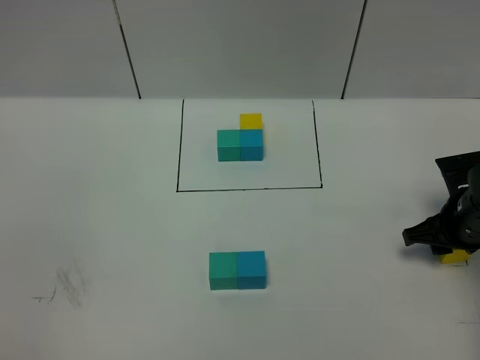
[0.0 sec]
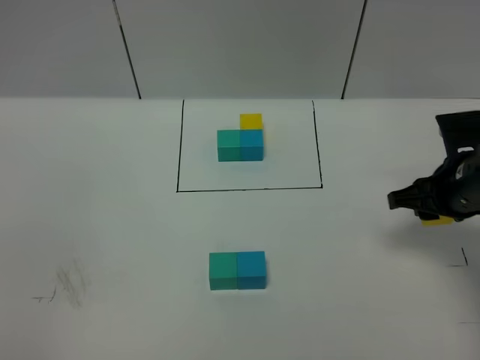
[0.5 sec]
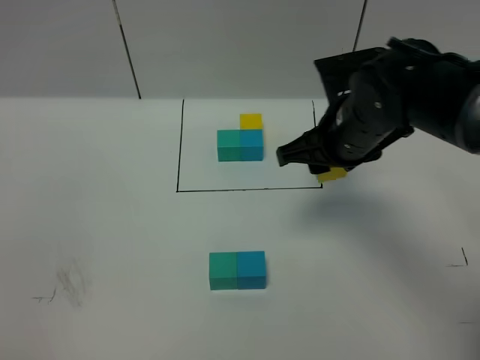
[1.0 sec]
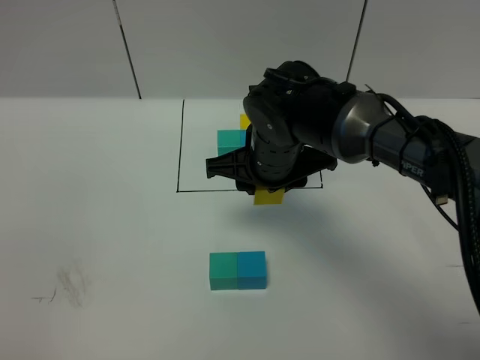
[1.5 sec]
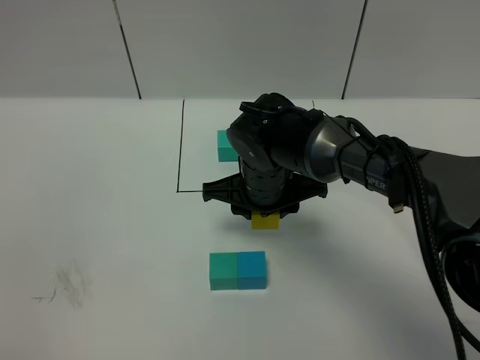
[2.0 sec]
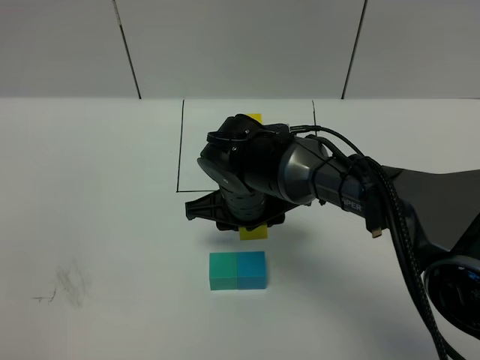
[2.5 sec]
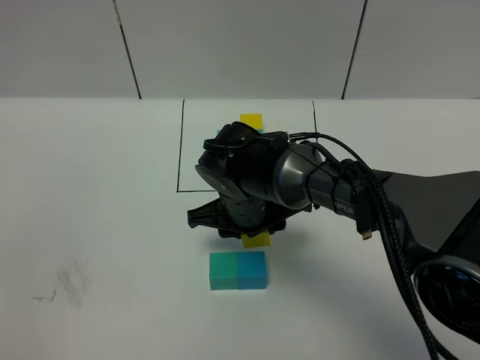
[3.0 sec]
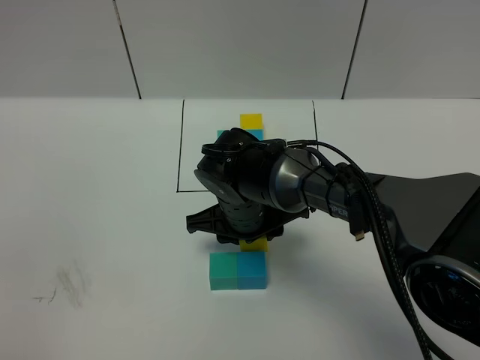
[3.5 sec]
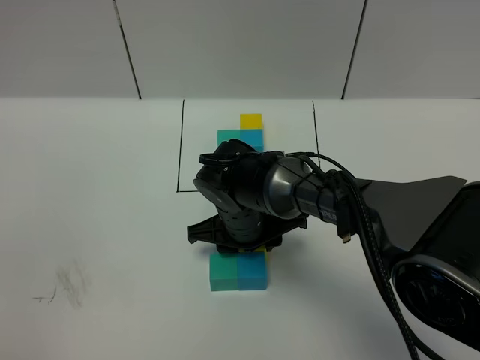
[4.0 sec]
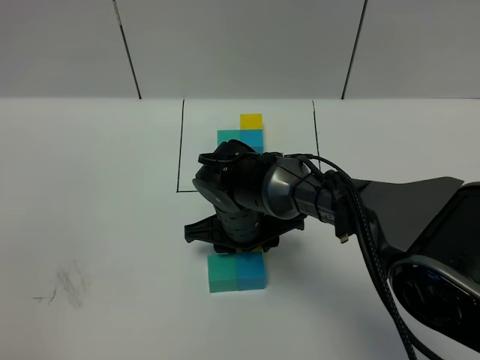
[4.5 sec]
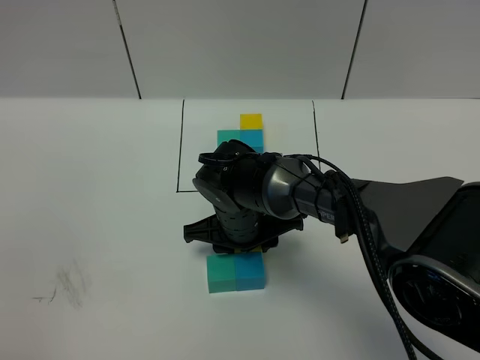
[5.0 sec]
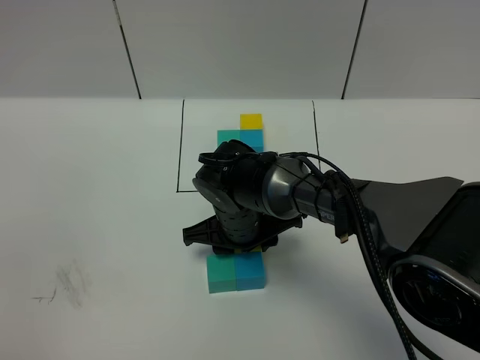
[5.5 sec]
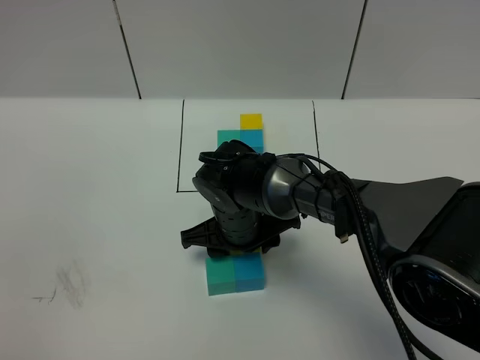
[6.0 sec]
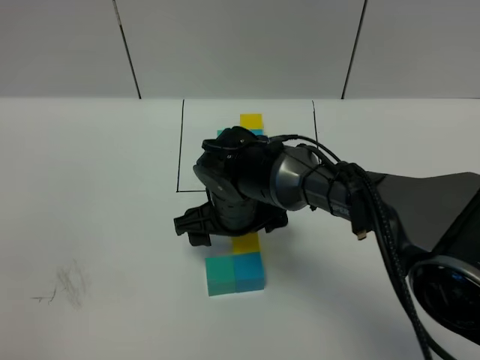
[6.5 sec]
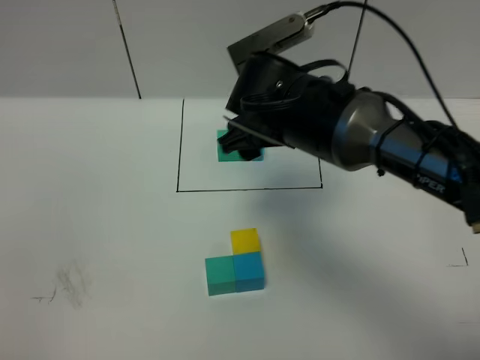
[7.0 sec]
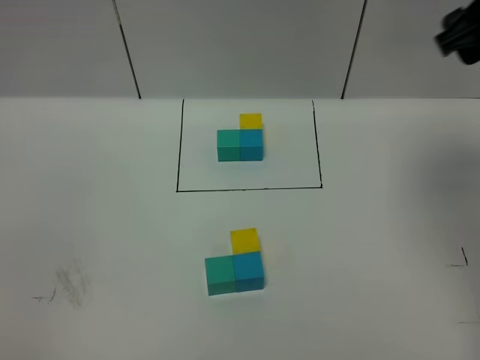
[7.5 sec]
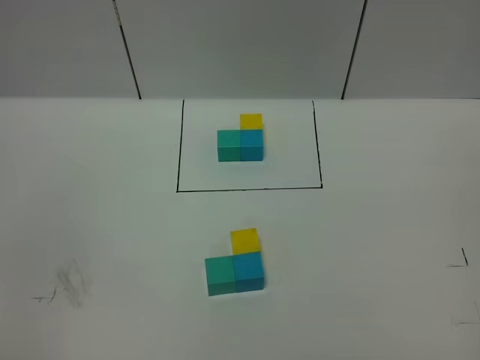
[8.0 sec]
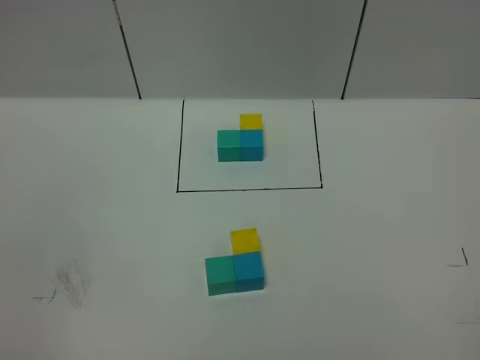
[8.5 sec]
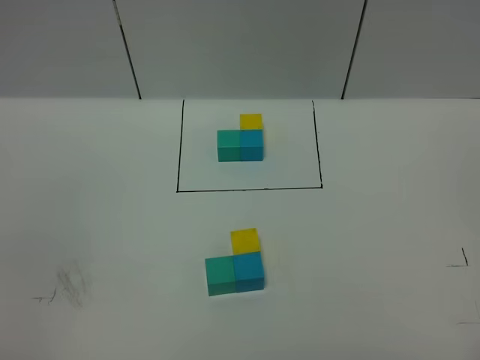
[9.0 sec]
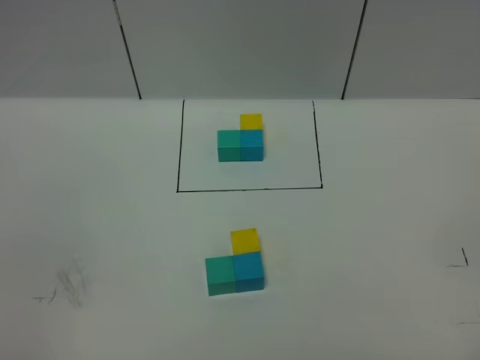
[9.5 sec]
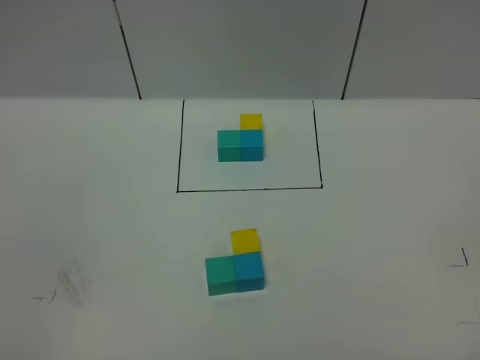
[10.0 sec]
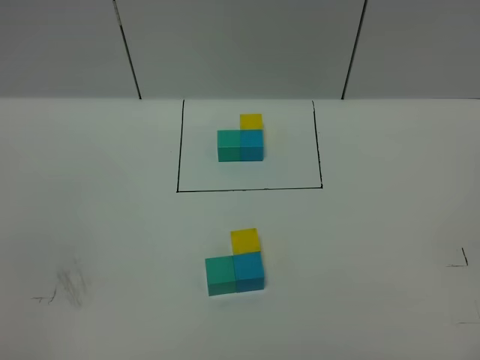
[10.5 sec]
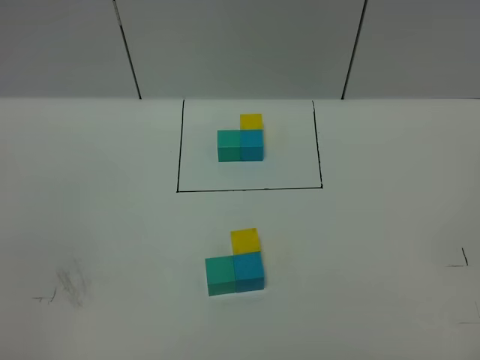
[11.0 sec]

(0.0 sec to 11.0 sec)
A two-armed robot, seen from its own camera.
Task of the whole recording: According to the building block template in front, assemble the scattered blocks together.
Step, 0.0 sec - 6.0 sec: Put the yellow cube on the behind of the blue cube.
0.0 sec - 2.0 sec: The right gripper is displaced to the left by some 25 cm.
2.0 sec - 3.5 sec: There are only small adjustments of the grippers.
3.5 sec - 5.5 sec: There are only small adjustments of the grippers.
5.5 sec - 7.5 sec: The right gripper heads upward and to the right, covering roughly 40 cm, and opens.
7.5 sec - 9.0 sec: The right gripper is displaced backward by roughly 35 cm.

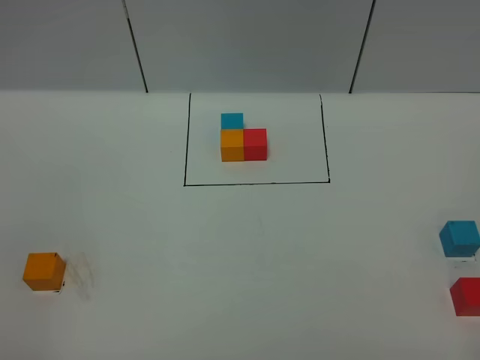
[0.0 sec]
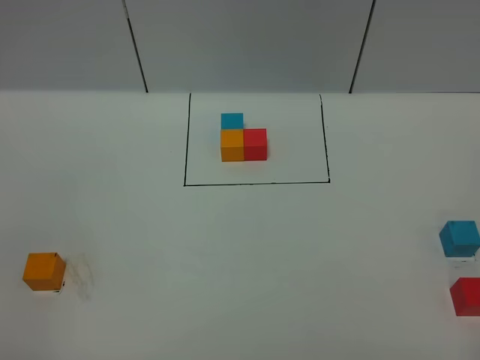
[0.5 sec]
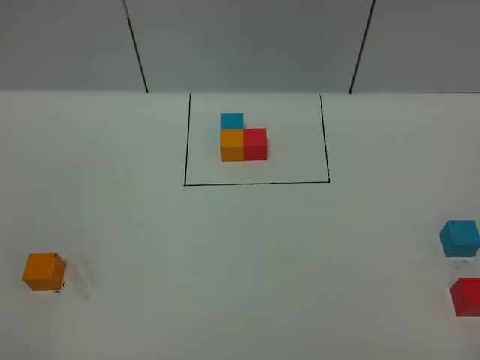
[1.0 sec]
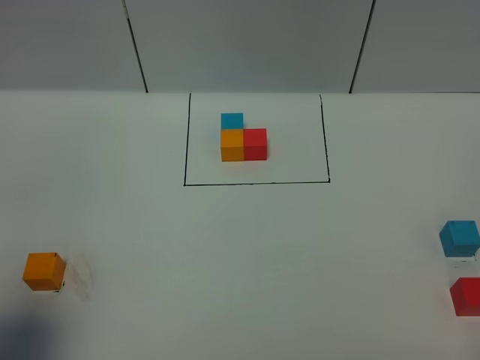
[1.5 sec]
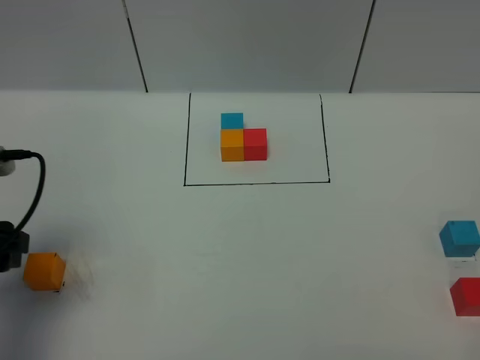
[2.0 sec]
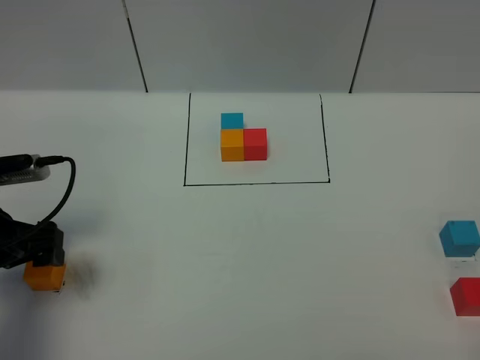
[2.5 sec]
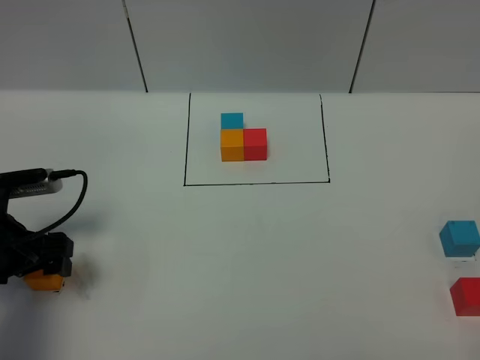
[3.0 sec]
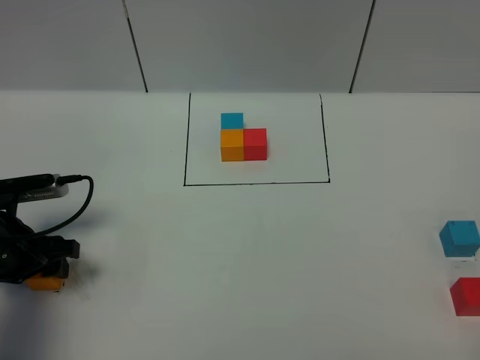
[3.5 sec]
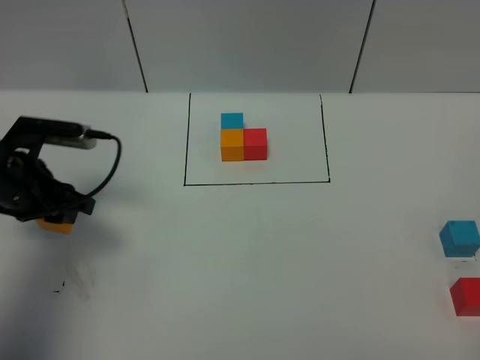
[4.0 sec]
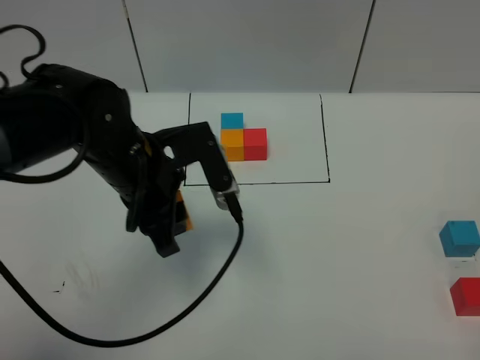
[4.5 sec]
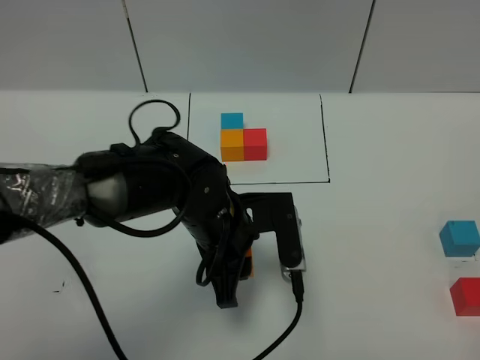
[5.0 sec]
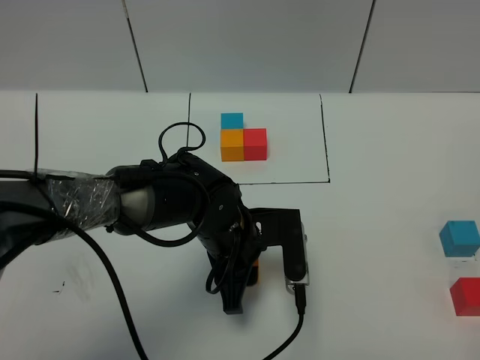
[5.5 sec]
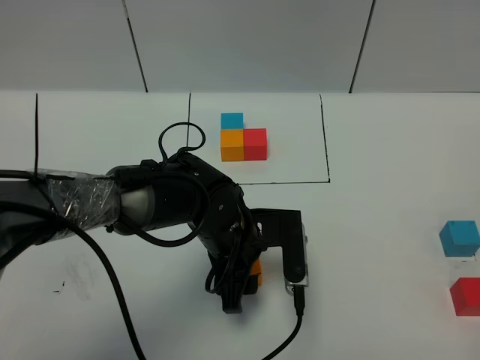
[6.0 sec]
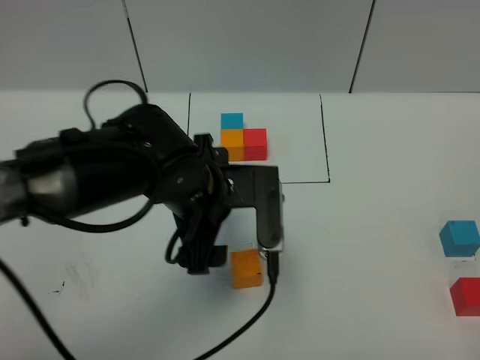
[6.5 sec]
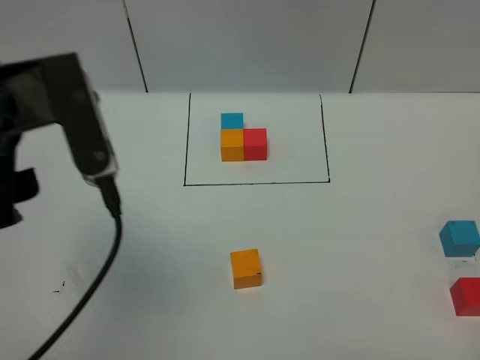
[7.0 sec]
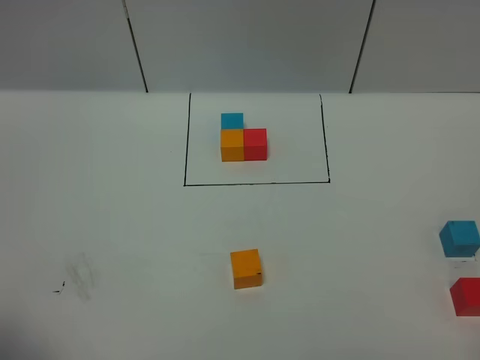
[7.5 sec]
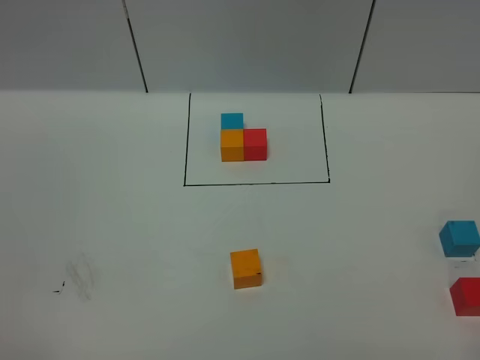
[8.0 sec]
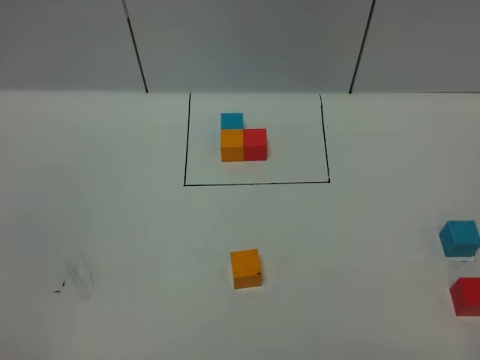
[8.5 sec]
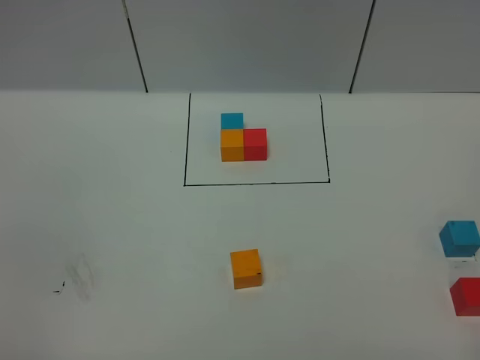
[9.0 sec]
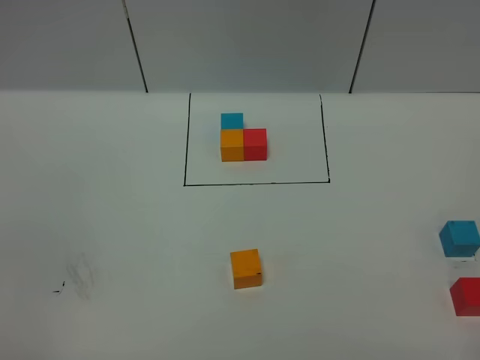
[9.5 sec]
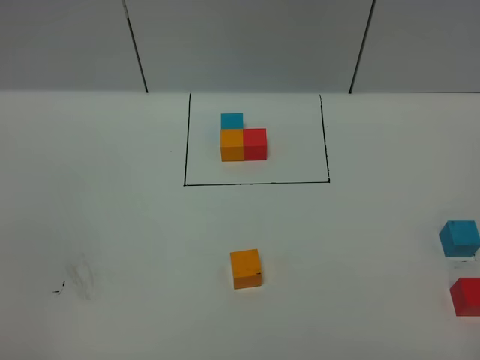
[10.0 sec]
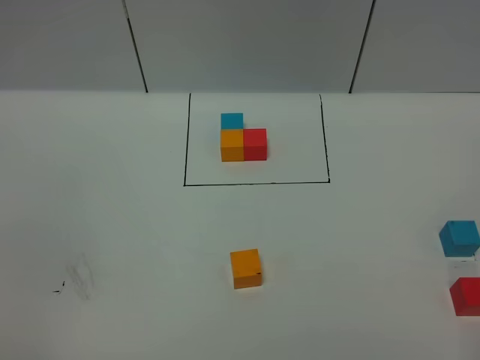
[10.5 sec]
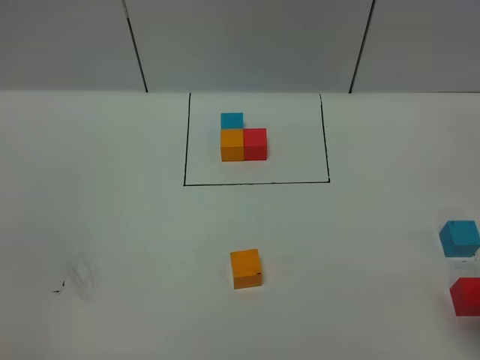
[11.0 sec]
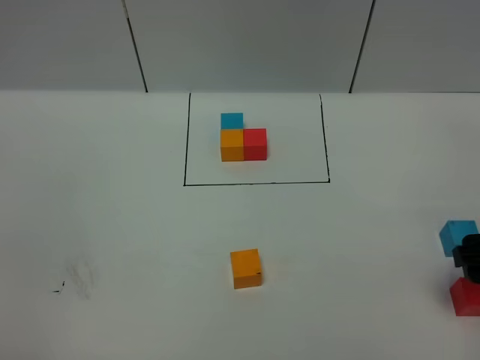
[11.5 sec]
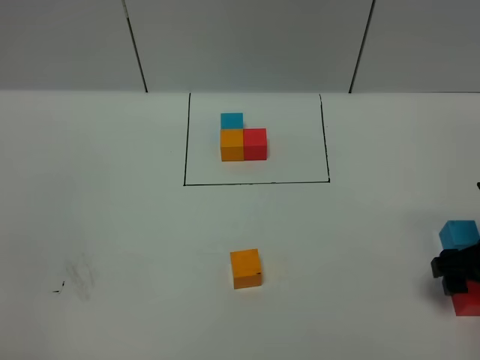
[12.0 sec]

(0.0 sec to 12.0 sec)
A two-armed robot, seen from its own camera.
Task of the whole recording: According to the building block template in front, assemble the scattered blocks together.
Step, 2.0 sec - 6.0 sec: Put the orange cube in the center of the table.
0.0 sec - 2.0 sec: The left gripper is displaced forward by some 25 cm.
2.0 sec - 4.0 sec: The left gripper heads forward, covering some 10 cm, and closes.
4.0 sec - 6.0 sec: The left gripper shifts approximately 25 cm to the right, and opens.
6.0 sec - 8.0 sec: The left gripper moves backward, to the left and upward, about 50 cm.
10.0 sec - 12.0 sec: The right gripper goes approximately 30 cm forward and downward.

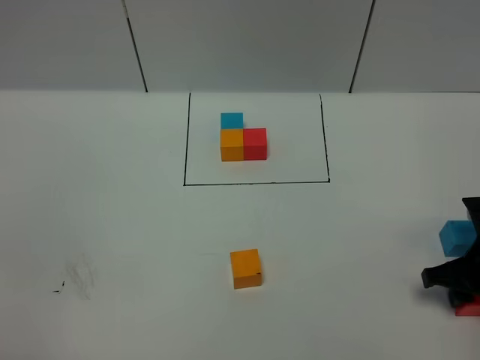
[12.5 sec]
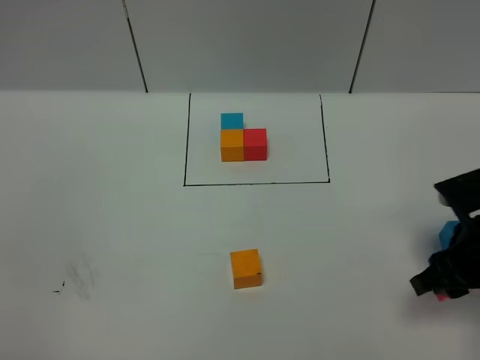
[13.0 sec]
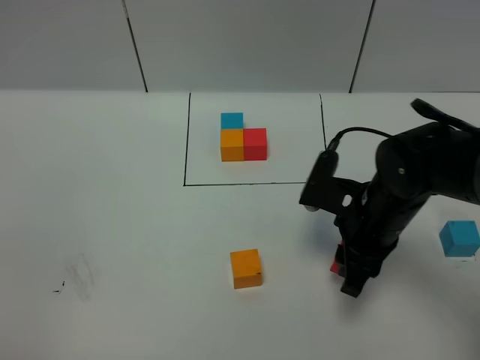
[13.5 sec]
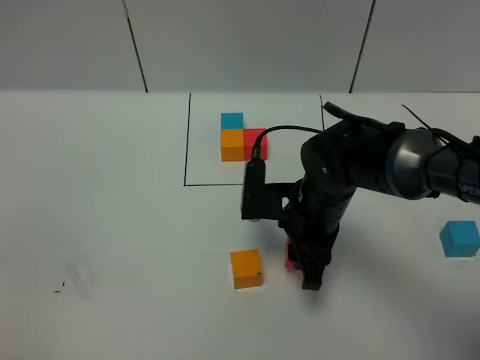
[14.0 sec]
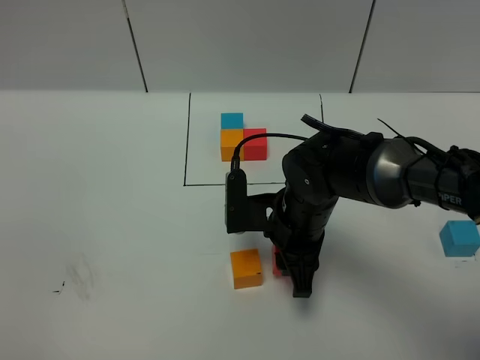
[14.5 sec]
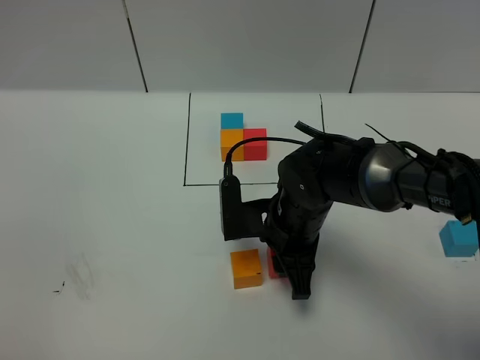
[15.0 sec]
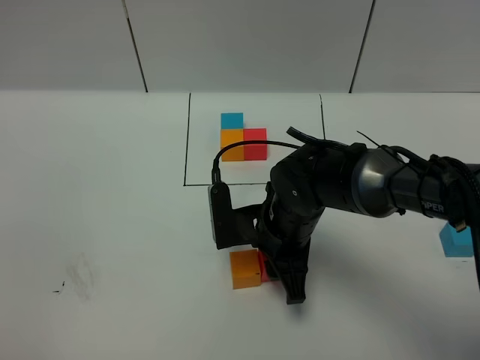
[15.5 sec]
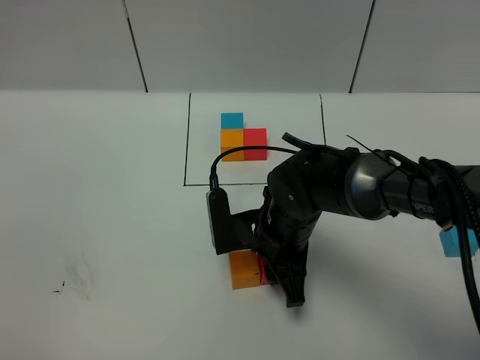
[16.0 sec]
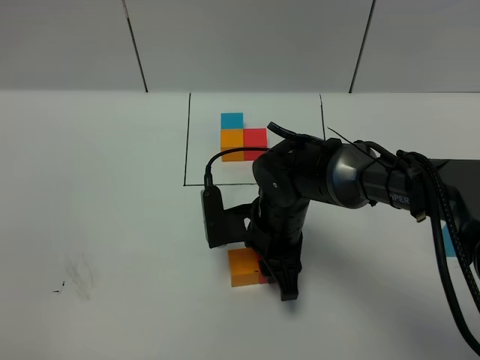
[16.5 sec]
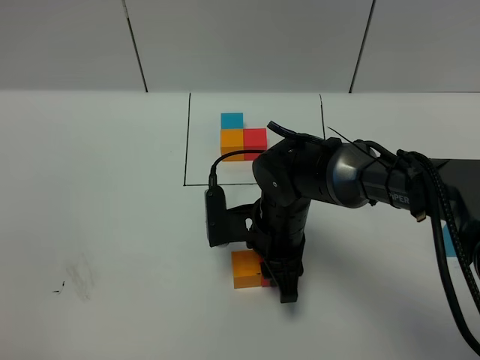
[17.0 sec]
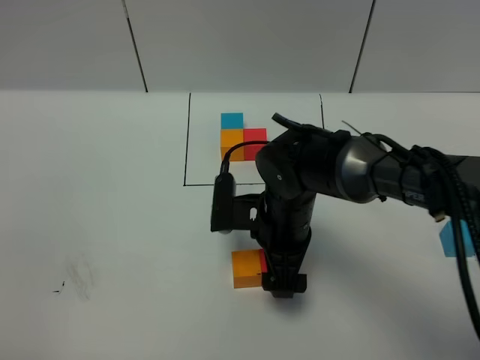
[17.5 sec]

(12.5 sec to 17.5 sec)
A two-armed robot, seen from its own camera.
Task of the whole recording: According to the building block template in front, assemble the scattered blocks together.
Step, 12.5 sec - 17.0 sec: Put the red cube on the right of the orange cube.
12.5 sec - 15.0 sec: The right gripper travels to the left by about 25 cm.
15.0 sec - 17.5 sec: The right gripper opens.
